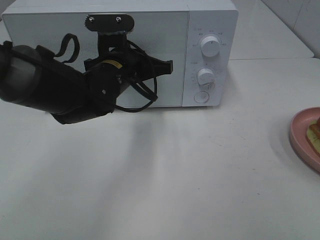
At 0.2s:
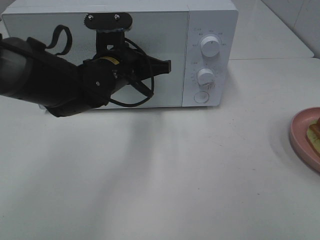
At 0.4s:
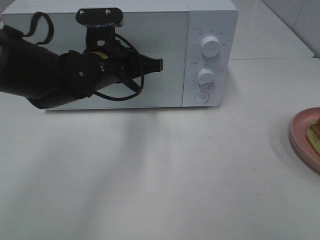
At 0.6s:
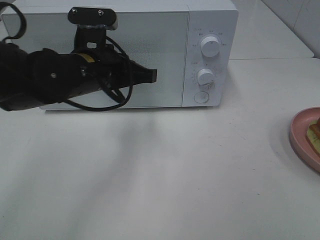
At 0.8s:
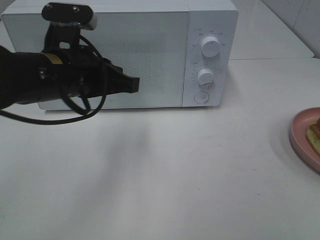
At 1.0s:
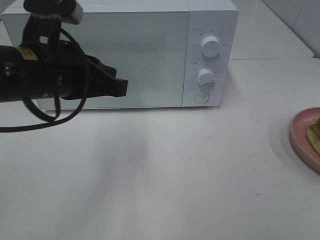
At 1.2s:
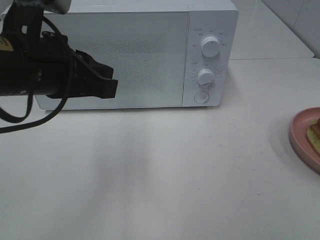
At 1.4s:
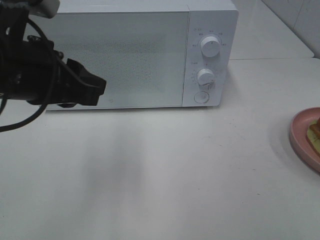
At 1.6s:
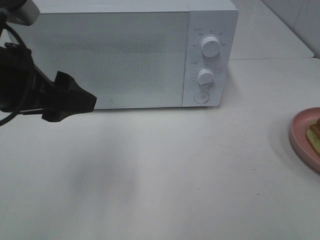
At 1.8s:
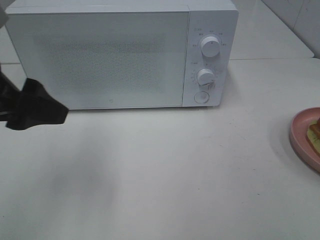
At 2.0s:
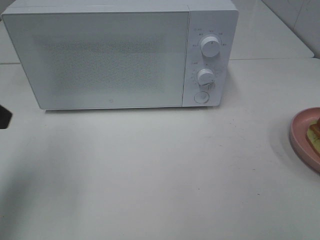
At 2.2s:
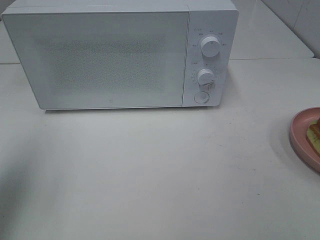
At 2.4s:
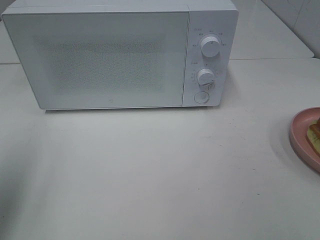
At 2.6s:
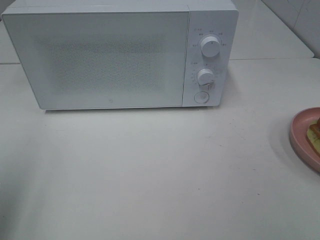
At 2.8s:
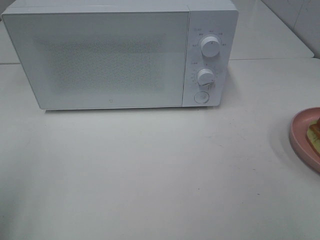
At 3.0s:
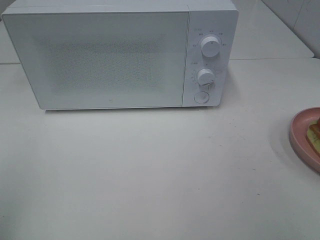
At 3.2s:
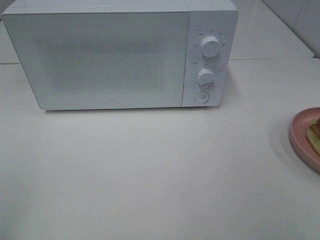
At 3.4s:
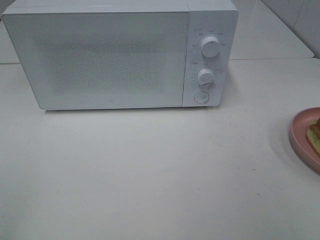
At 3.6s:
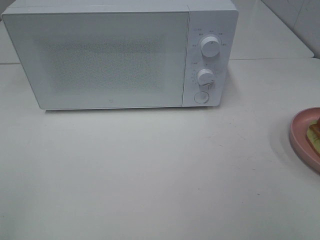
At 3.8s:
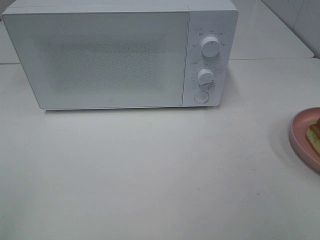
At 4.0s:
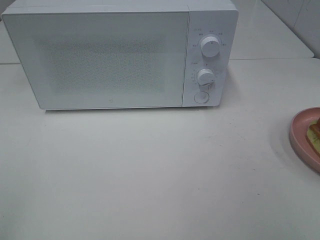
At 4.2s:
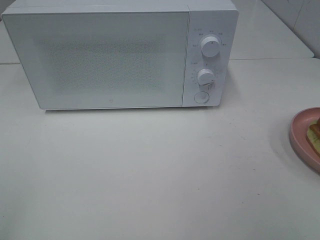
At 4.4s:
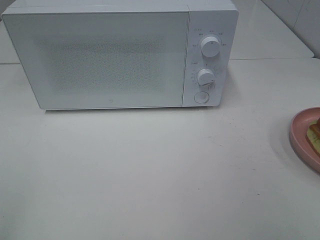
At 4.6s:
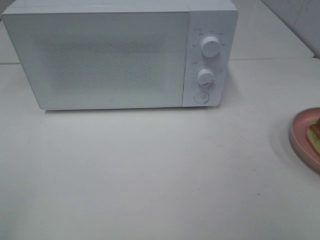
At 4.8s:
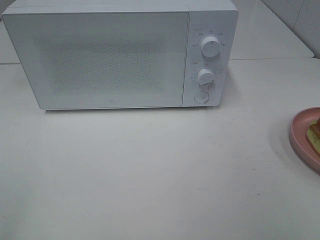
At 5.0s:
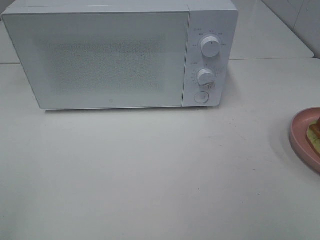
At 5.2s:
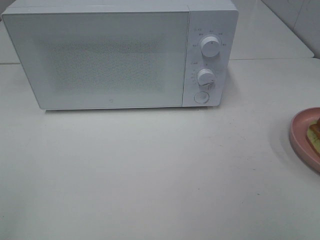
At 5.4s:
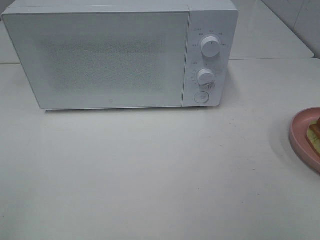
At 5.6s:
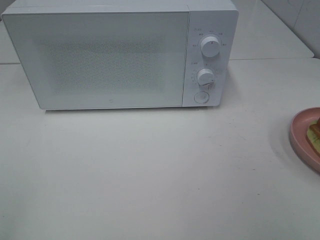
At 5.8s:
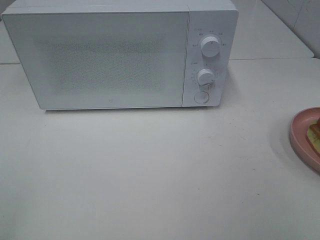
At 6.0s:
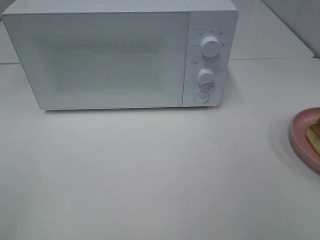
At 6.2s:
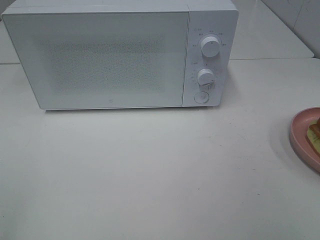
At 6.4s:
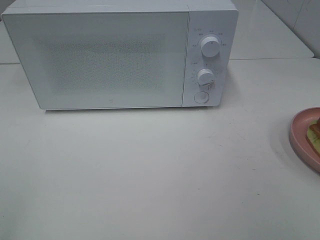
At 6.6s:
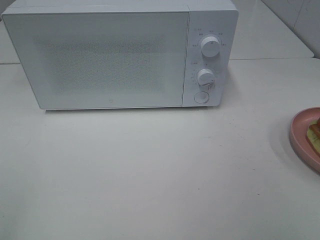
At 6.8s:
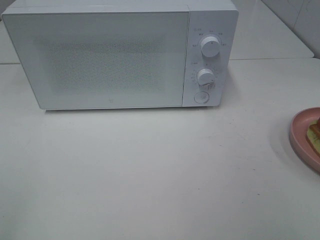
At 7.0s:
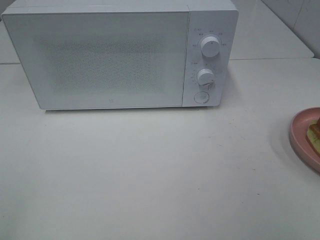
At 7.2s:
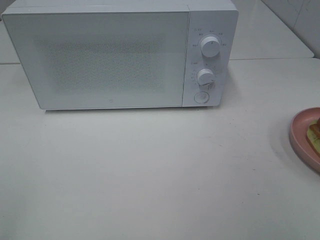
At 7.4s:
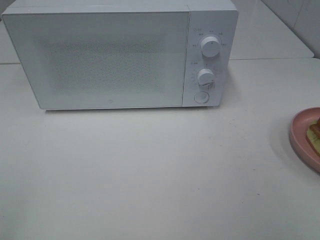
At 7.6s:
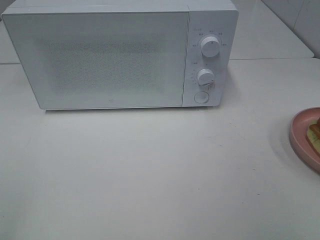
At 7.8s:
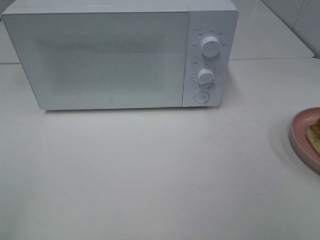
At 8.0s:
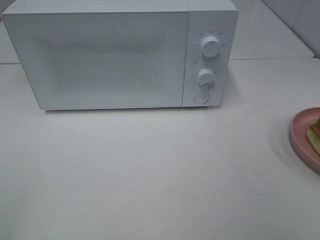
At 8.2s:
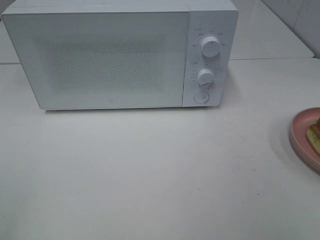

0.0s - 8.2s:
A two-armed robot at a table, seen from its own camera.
Task of the whole recording: Heat Sandwich.
0.0s - 1.6s: The left gripper is displaced backward, to the left and upward by roughly 20 cm, and opens its fingers.
1.6s - 3.2s: The left gripper travels backward and to the left by roughly 25 cm.
5.0s - 8.2s: Both grippers stay about where they are.

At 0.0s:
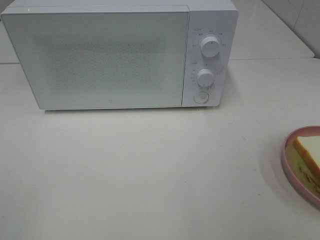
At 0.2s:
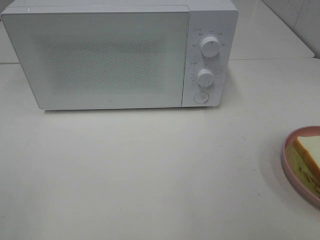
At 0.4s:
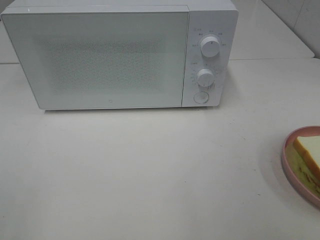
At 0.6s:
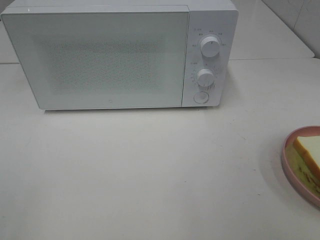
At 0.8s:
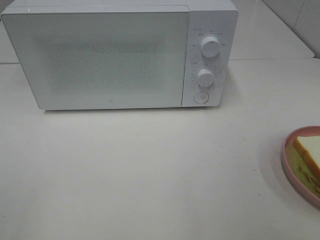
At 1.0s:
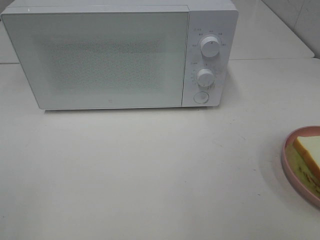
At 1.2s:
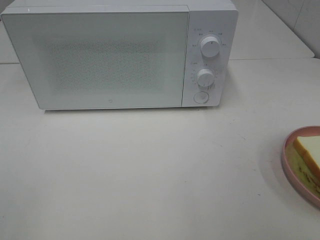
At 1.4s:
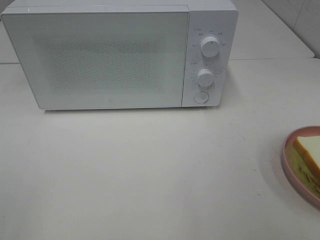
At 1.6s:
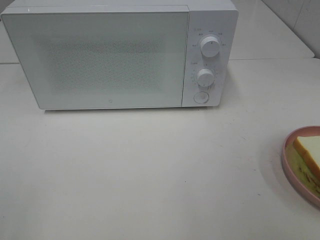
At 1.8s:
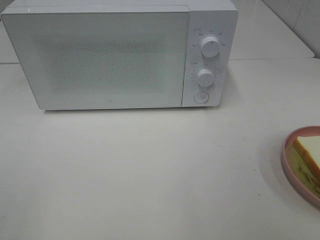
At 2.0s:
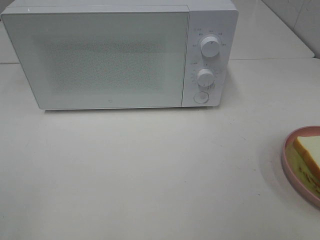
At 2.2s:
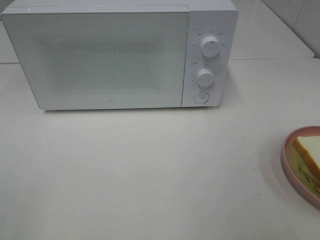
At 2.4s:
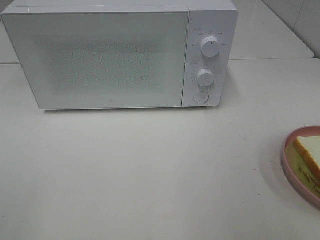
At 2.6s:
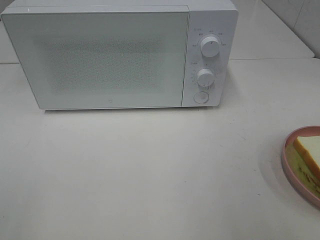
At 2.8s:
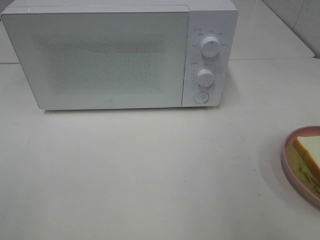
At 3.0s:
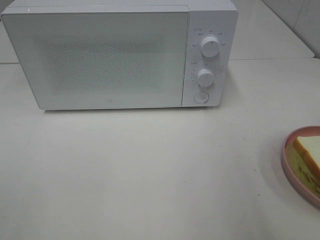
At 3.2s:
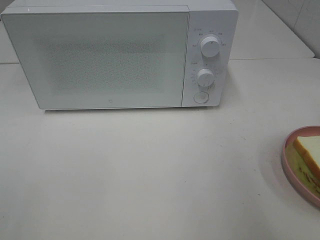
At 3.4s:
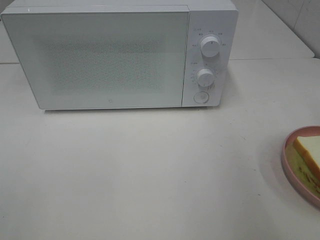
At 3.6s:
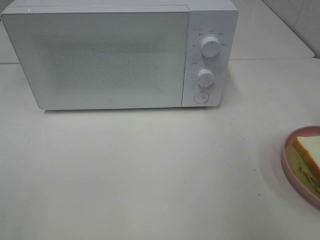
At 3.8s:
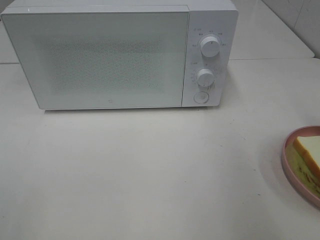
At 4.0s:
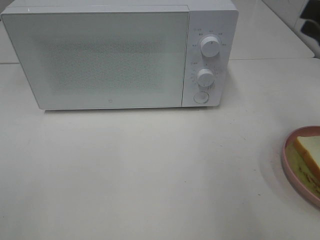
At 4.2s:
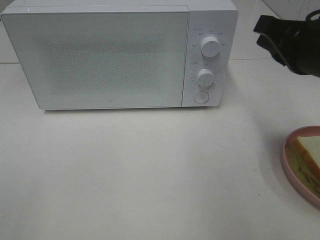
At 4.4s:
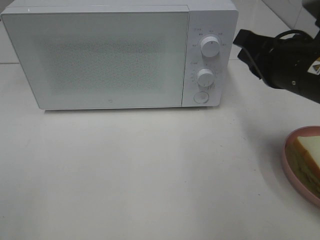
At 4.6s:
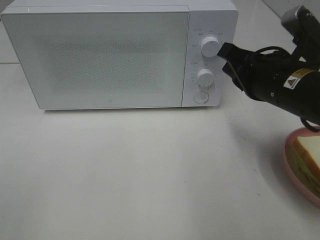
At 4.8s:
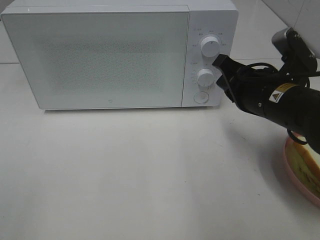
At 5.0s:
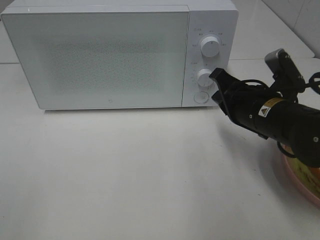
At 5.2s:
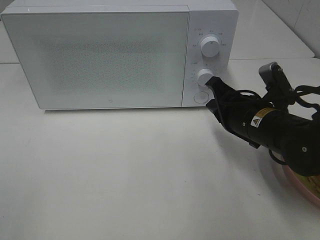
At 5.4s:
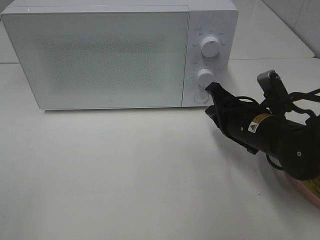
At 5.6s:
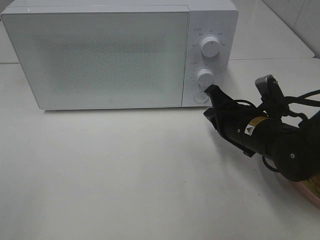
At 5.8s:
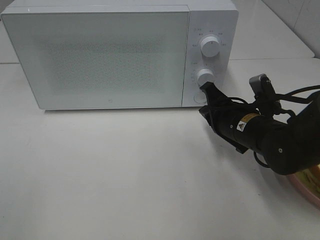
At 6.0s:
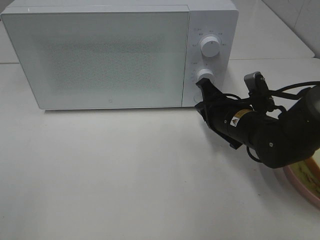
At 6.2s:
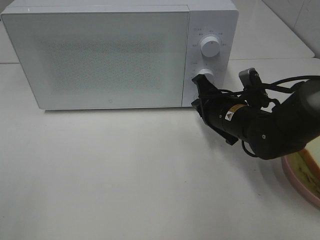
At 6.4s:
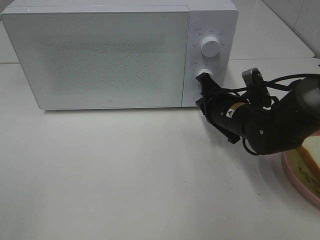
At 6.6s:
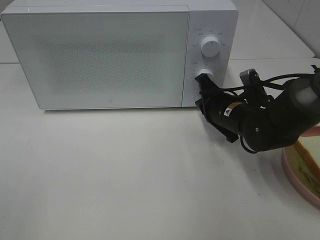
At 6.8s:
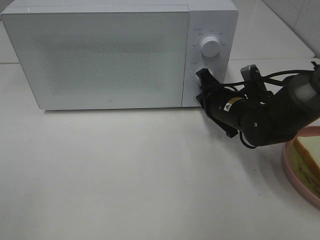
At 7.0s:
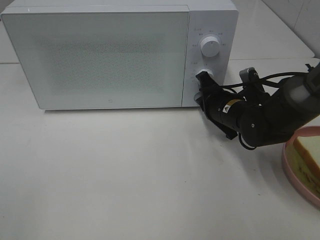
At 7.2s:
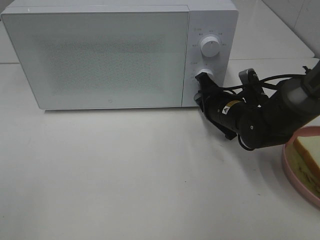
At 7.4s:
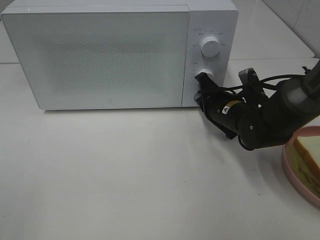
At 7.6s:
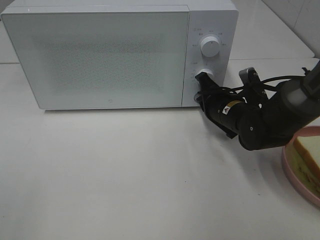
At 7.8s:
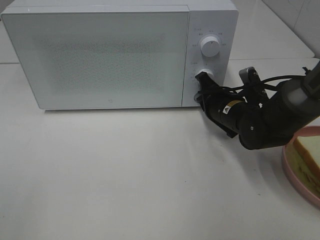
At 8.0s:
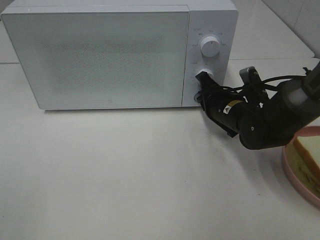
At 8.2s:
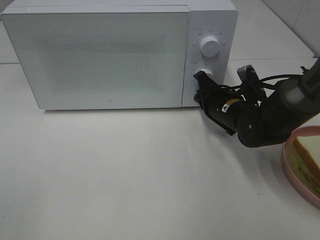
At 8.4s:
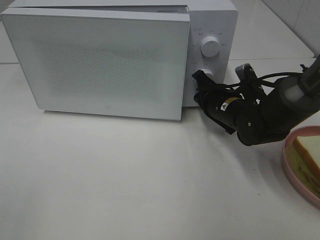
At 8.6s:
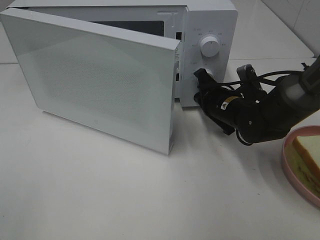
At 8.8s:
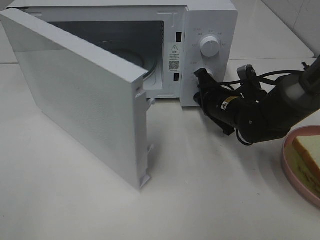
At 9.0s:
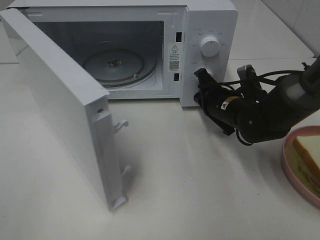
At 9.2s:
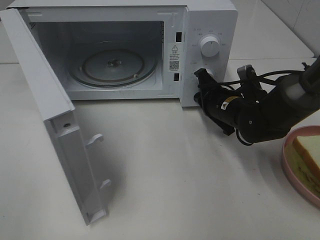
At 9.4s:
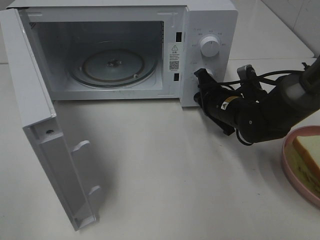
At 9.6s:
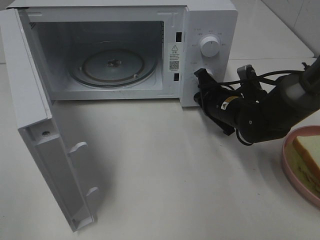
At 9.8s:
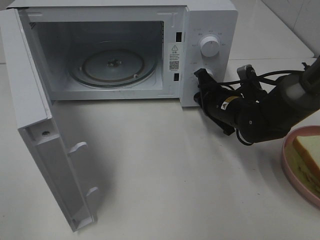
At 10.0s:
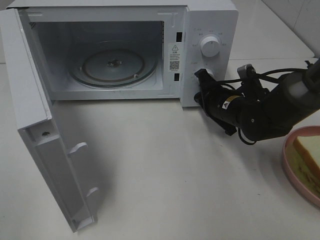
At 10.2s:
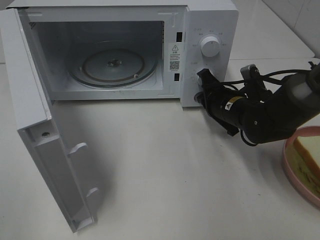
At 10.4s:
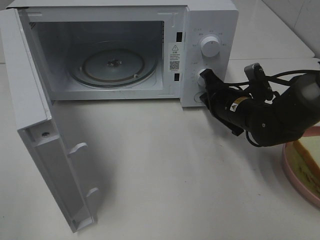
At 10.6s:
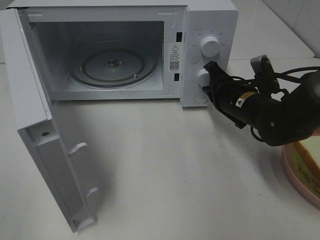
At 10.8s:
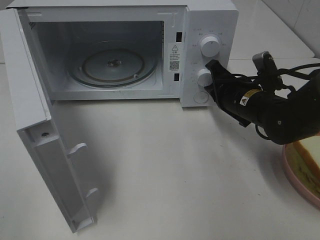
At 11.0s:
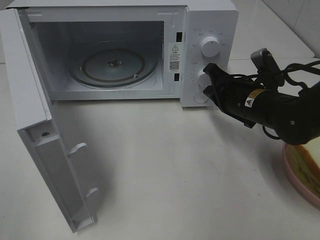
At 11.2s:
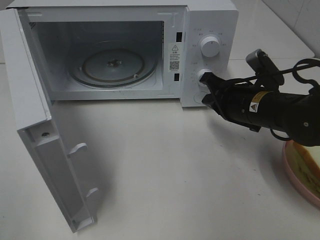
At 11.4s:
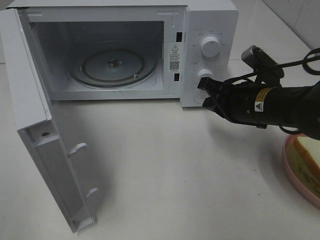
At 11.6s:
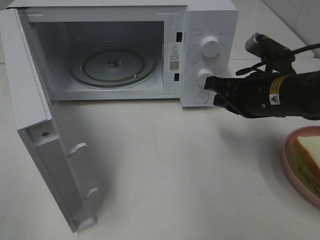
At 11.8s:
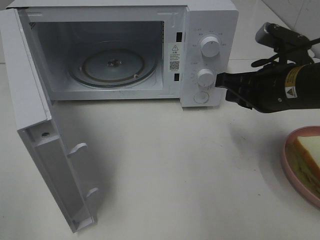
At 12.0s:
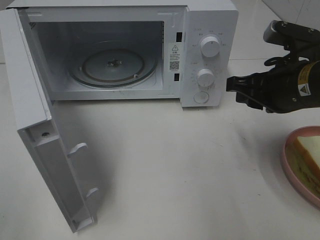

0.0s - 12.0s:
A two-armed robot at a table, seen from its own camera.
Task of the whole recording: Heat Sandwich.
Step, 0.0s - 10.8s: Right hand: press the switch.
0.0s - 1.6s: Both grippers stay about where they are.
3.0s - 4.4s: The right gripper shifts some 20 cm forward, downward and to the left.
4.4s - 6.0s: The right gripper shifts about 15 cm downward and forward.
6.0s - 7.6s: The right gripper shifts by about 5 cm.
10.4s - 12.0s: The right gripper moves upward and backward, approximately 15 cm, and opens.

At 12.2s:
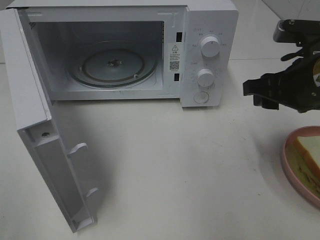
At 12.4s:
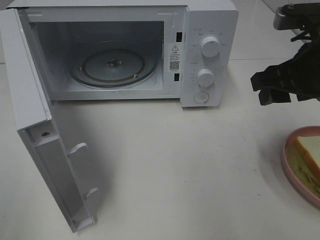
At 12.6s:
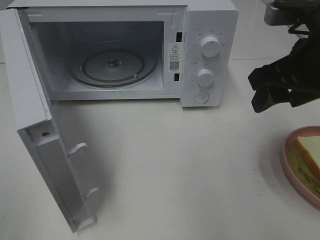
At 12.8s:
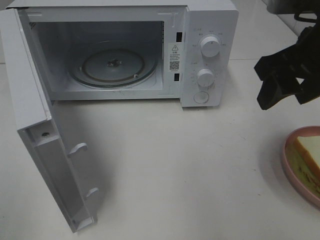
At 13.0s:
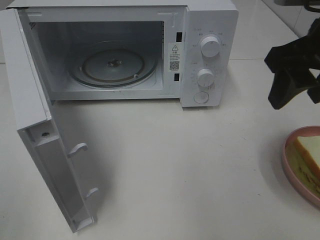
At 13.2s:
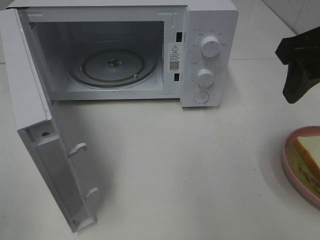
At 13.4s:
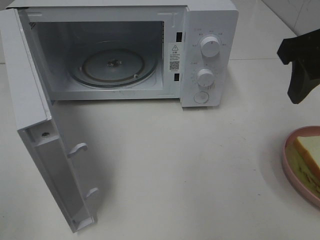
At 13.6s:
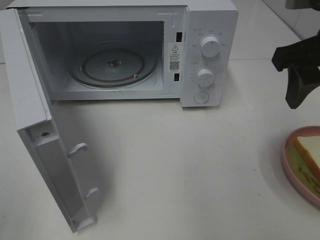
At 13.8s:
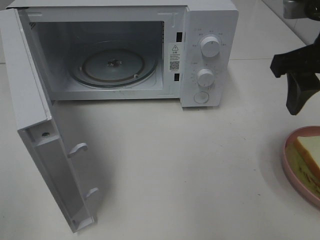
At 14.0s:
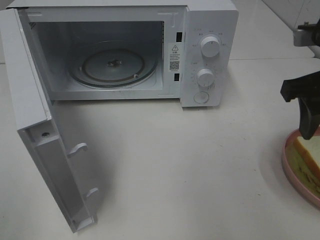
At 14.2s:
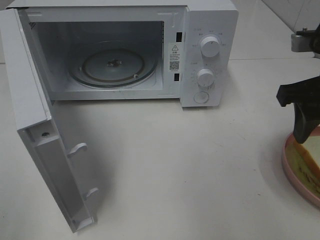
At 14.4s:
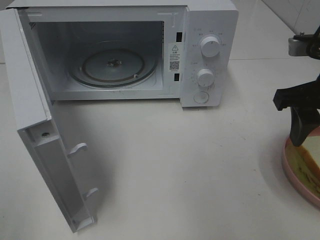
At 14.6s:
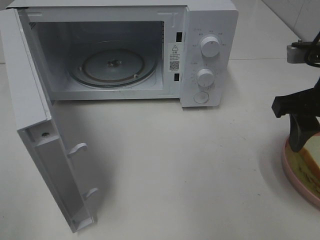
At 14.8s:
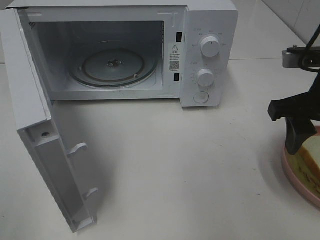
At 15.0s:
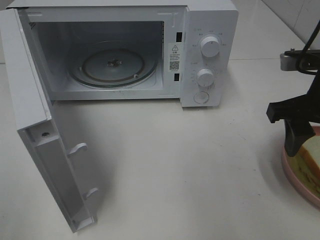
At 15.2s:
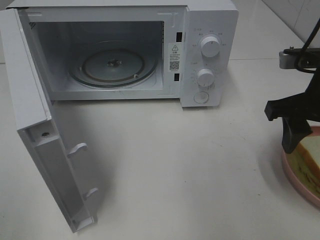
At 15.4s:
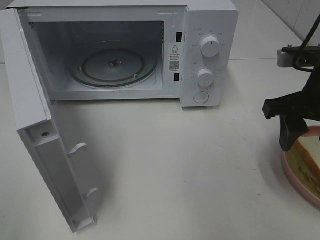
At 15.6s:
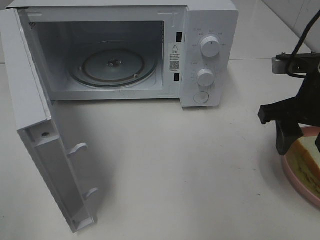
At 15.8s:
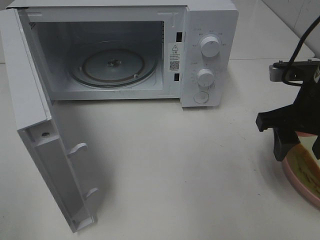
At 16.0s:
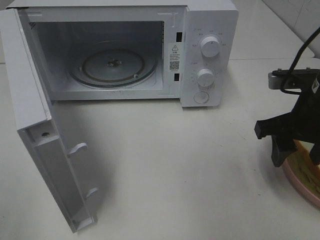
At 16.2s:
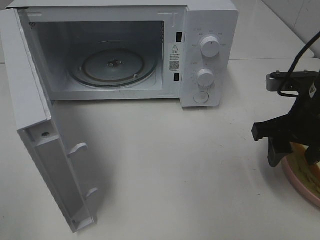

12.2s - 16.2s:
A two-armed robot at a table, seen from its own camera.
Task of the whole recording: Heat Sandwich.
12.2s - 13.6s: The right gripper travels upward by about 10 cm.
13.6s - 14.8s: The right gripper shifts approximately 5 cm downward.
14.8s - 16.2s: The right gripper heads downward, covering roughly 5 cm.
